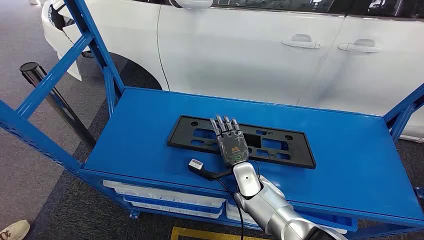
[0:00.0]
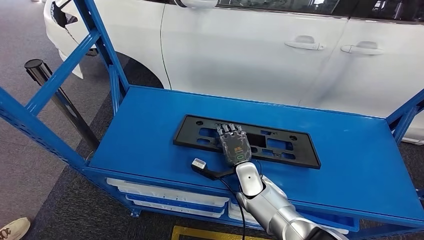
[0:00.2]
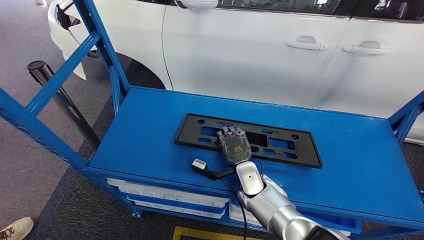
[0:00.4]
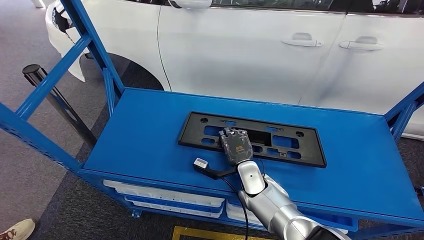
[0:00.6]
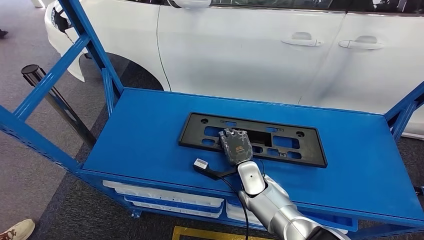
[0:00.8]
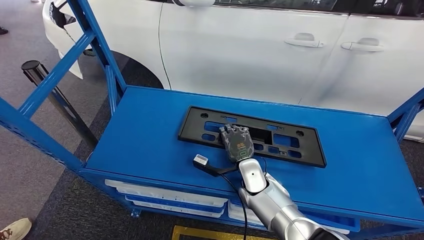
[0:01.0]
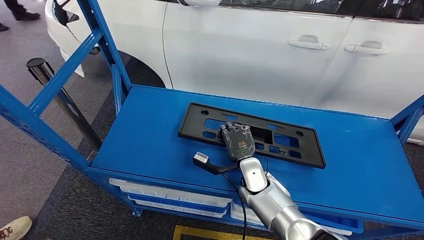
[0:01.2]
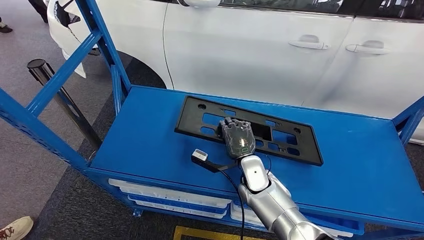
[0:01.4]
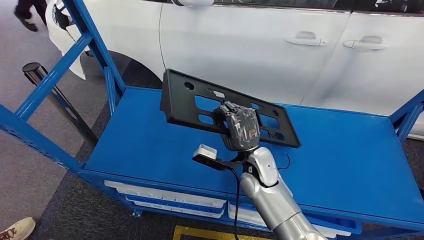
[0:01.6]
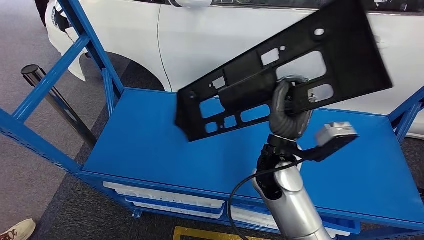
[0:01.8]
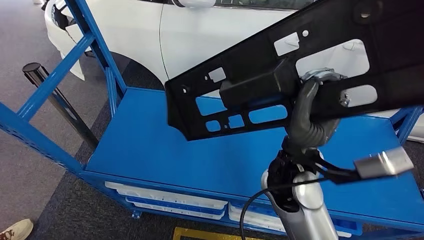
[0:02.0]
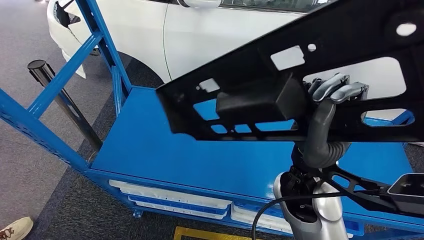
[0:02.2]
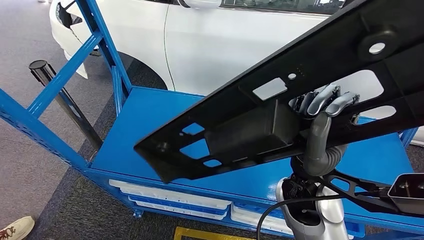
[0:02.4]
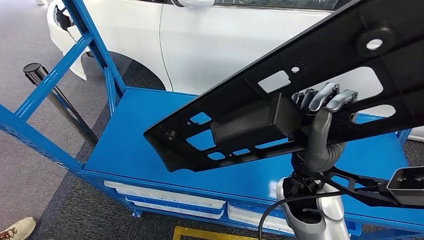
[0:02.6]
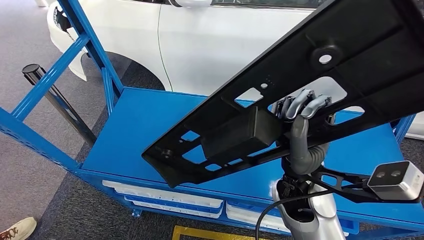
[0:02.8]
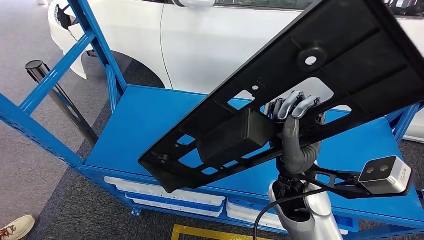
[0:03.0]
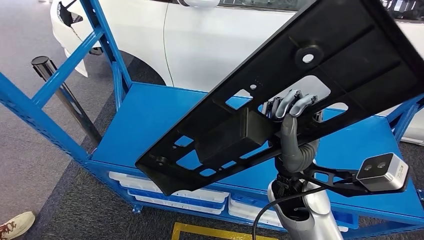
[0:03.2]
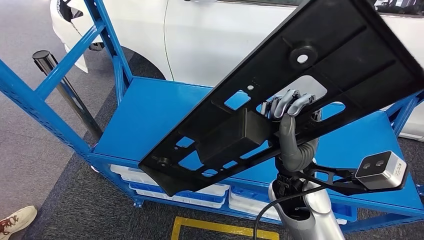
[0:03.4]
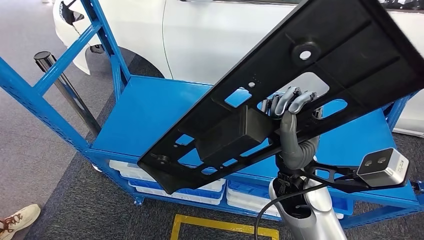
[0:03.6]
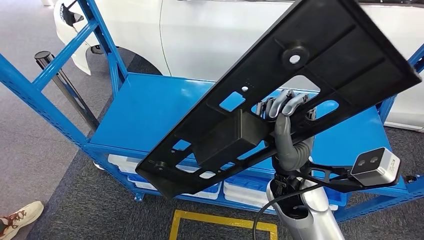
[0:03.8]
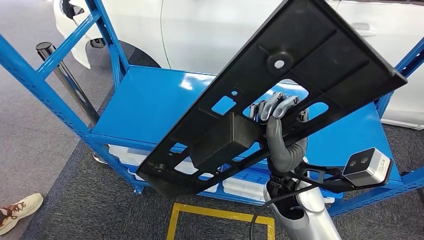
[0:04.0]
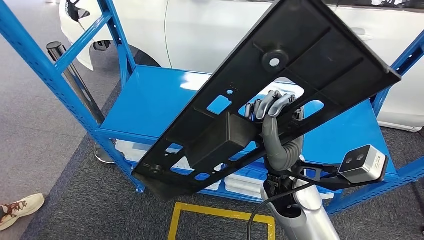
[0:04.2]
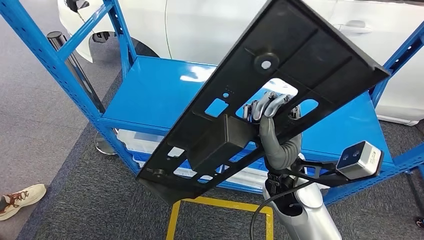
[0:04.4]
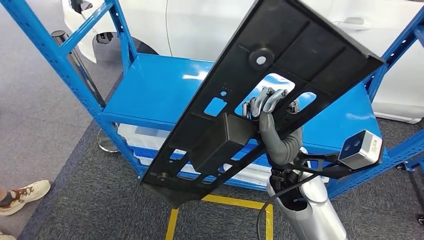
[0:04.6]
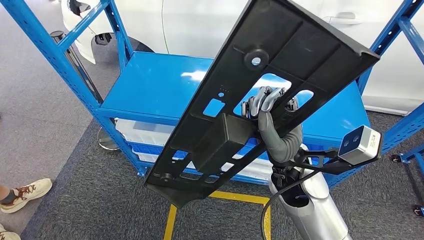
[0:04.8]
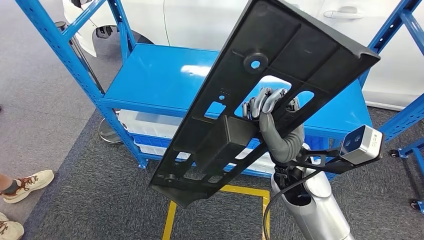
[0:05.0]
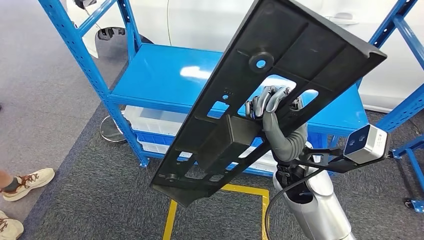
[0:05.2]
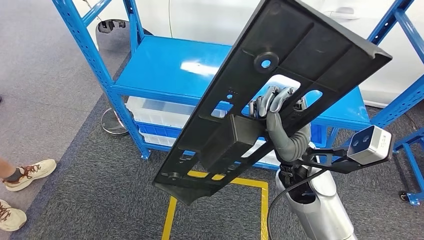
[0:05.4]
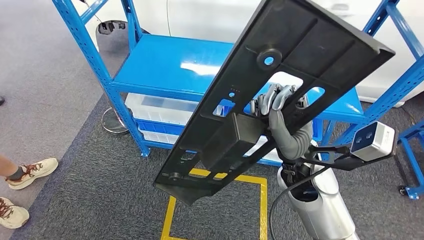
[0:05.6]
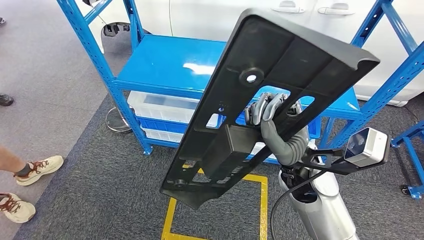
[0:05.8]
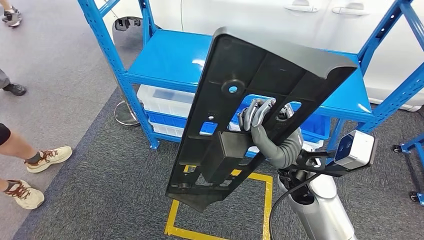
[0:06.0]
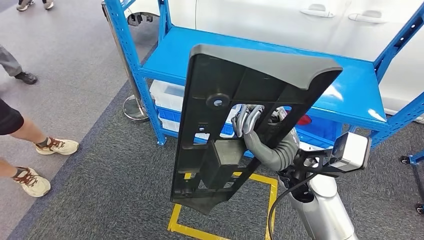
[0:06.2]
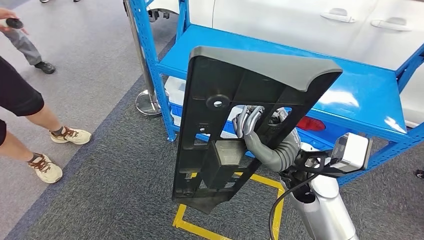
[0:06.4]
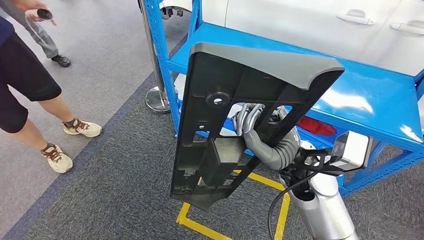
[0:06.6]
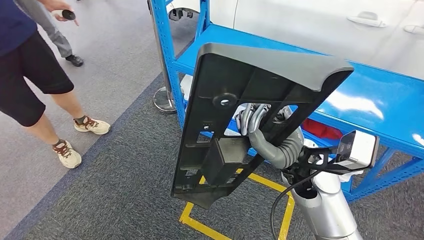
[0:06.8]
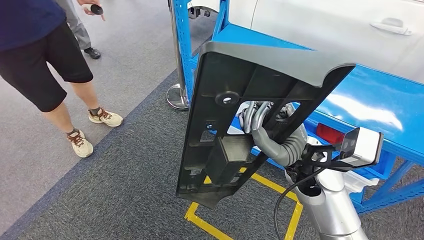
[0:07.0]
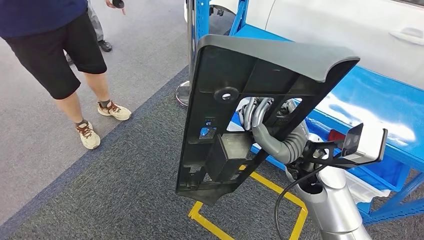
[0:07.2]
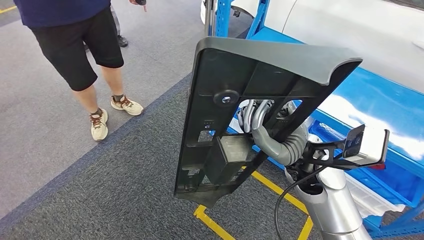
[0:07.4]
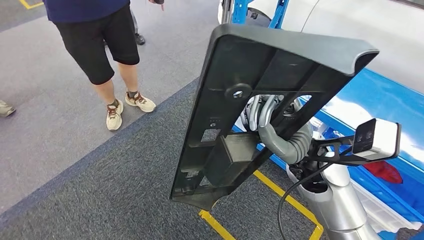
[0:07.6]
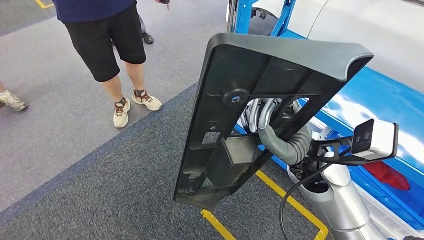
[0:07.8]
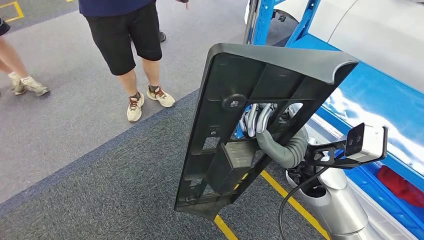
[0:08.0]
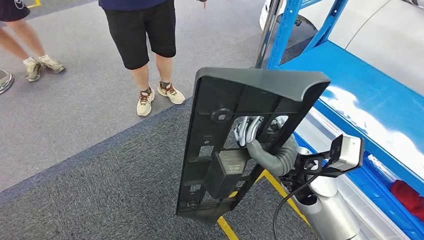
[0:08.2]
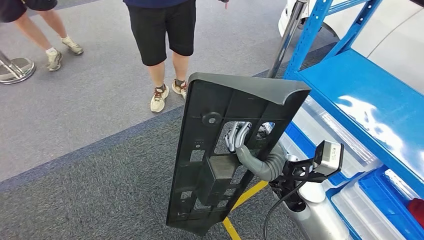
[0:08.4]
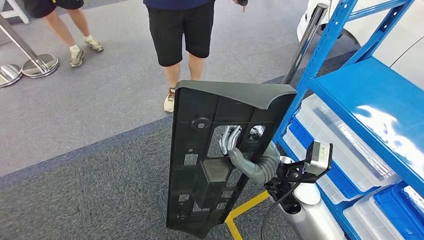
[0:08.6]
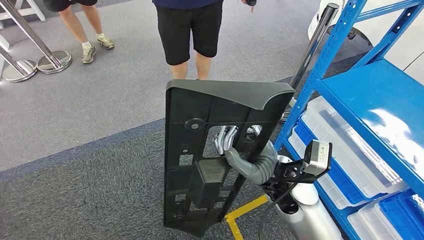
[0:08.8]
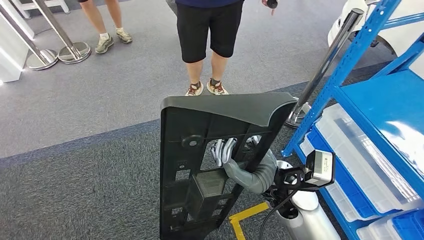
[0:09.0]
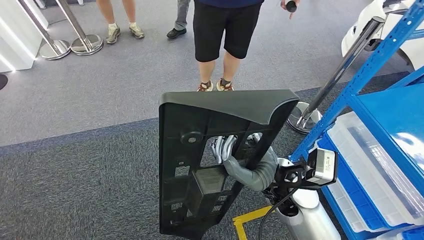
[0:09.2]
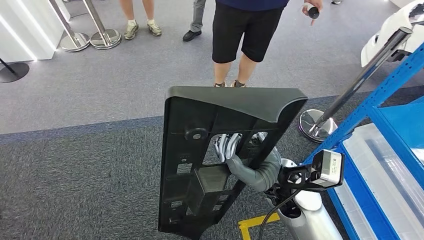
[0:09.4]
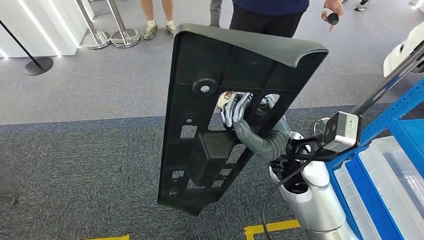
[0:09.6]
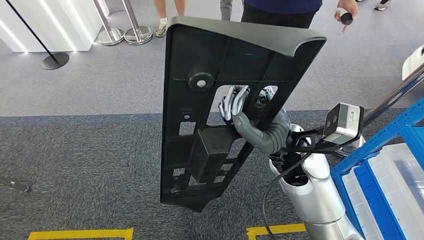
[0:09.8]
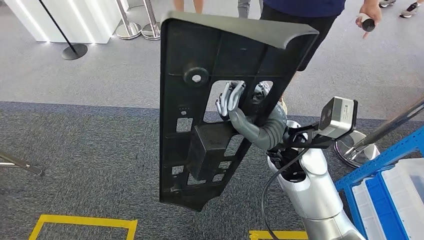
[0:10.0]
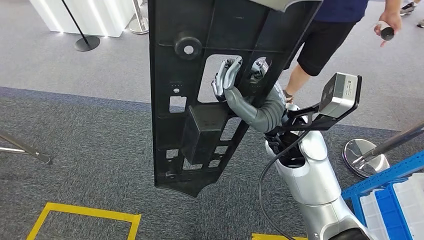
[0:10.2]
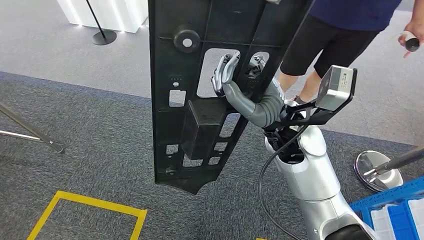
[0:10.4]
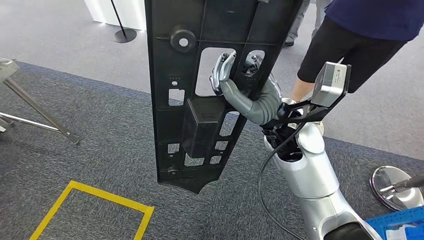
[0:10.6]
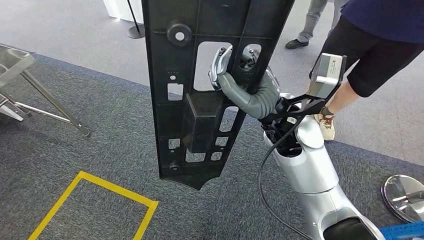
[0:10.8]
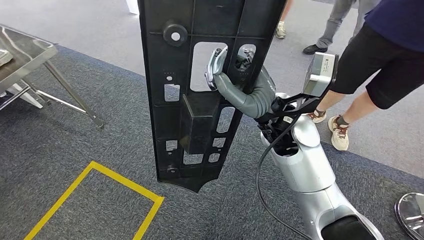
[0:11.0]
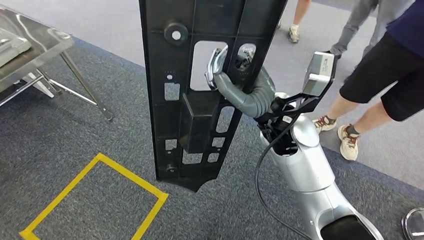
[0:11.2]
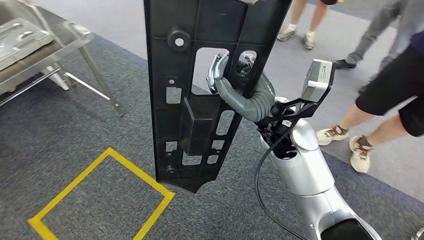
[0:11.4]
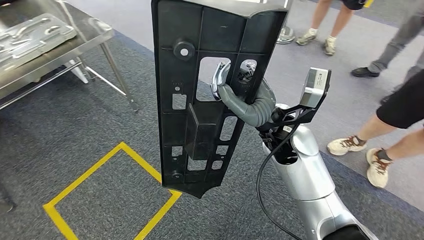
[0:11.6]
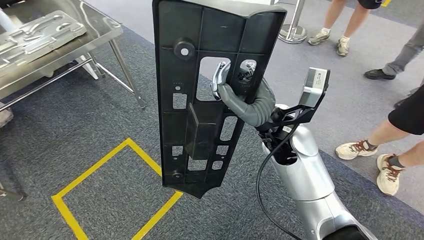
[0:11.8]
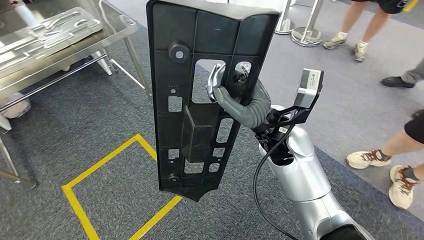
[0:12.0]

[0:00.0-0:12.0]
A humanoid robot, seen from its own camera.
Step, 0:00.0 to 0:03.2: Pick up the small component from the shelf.

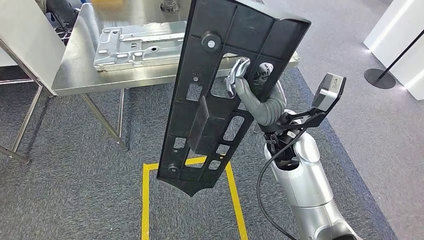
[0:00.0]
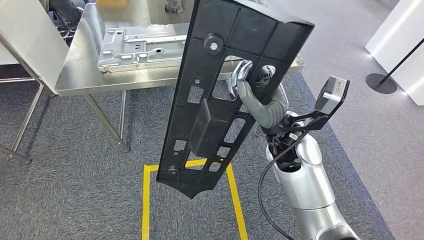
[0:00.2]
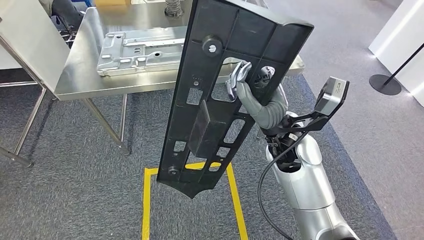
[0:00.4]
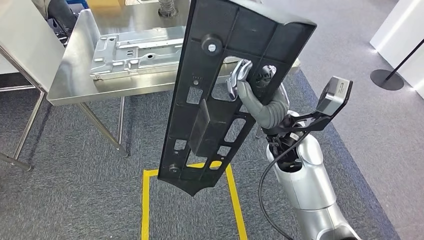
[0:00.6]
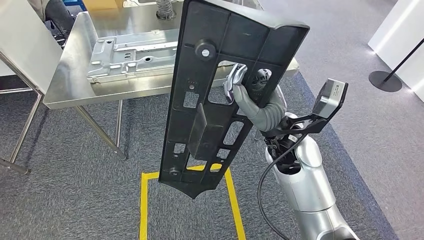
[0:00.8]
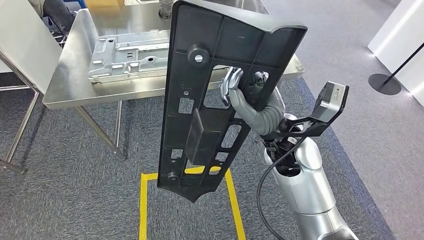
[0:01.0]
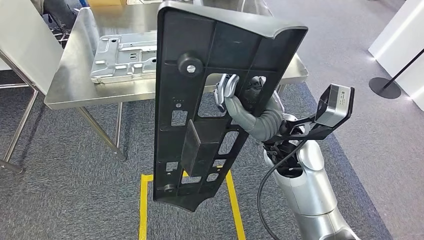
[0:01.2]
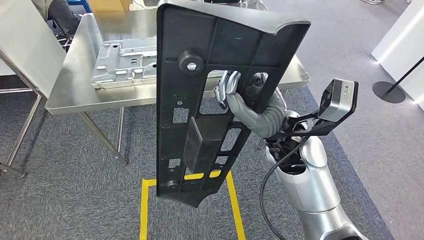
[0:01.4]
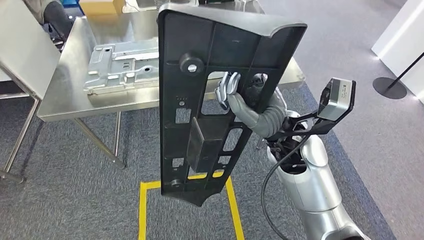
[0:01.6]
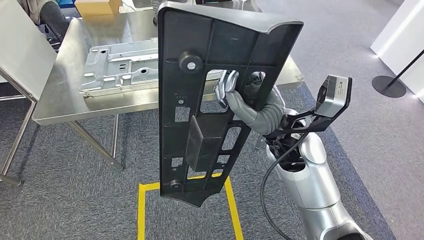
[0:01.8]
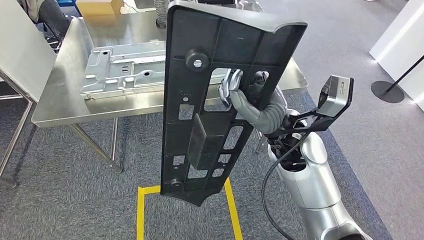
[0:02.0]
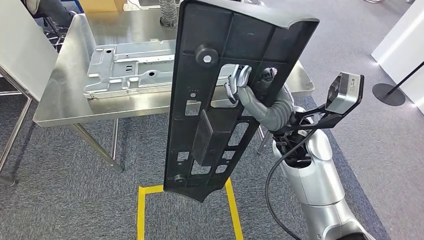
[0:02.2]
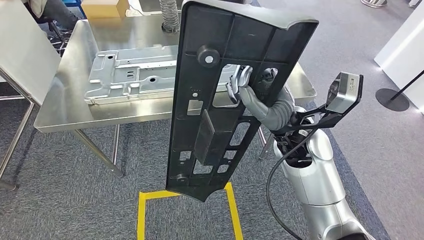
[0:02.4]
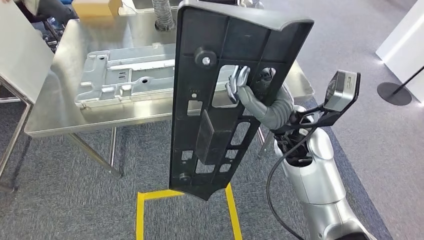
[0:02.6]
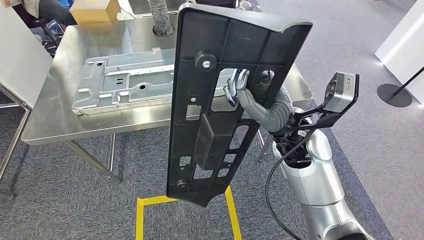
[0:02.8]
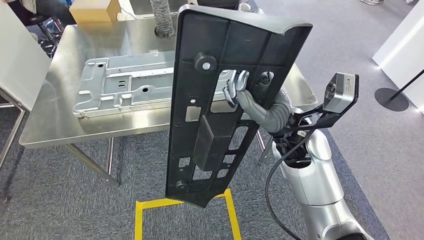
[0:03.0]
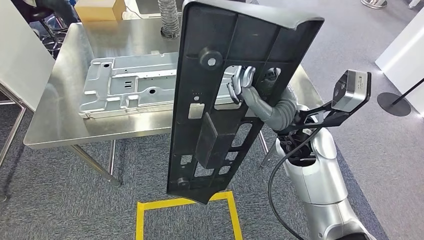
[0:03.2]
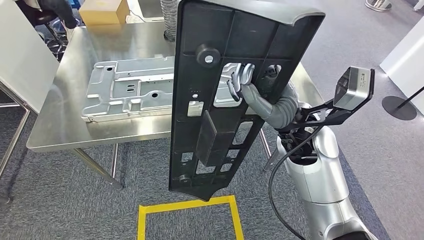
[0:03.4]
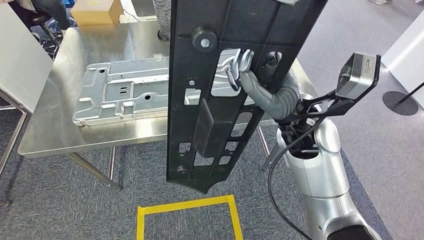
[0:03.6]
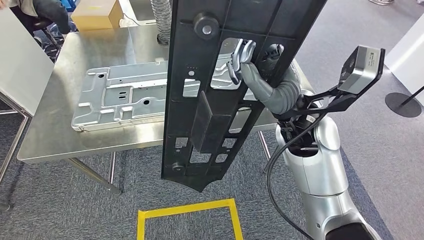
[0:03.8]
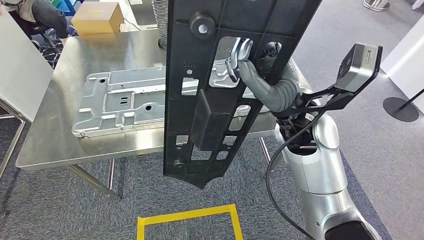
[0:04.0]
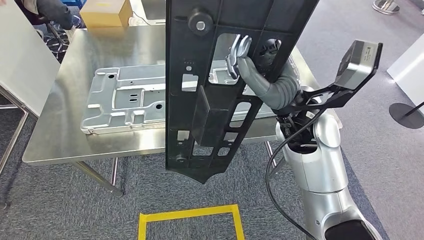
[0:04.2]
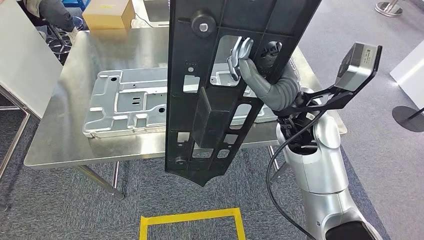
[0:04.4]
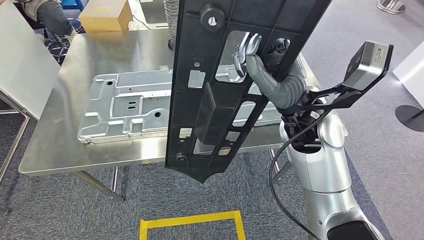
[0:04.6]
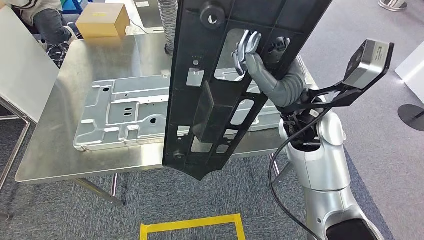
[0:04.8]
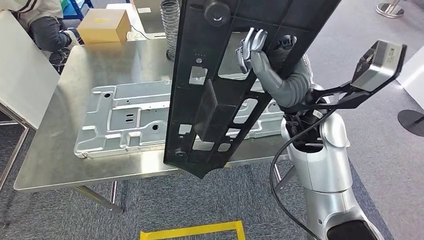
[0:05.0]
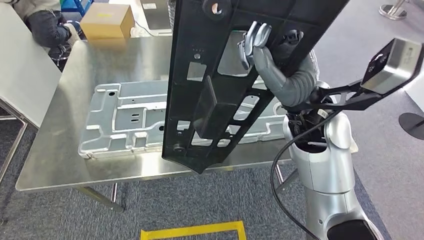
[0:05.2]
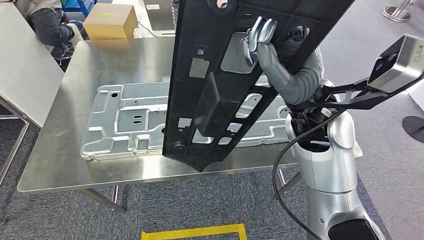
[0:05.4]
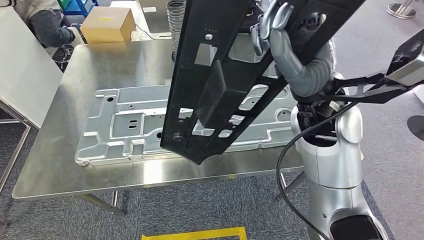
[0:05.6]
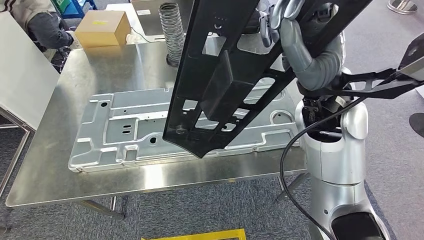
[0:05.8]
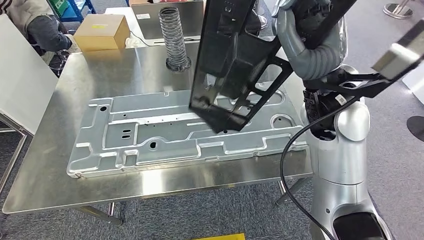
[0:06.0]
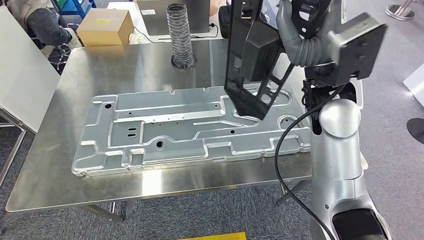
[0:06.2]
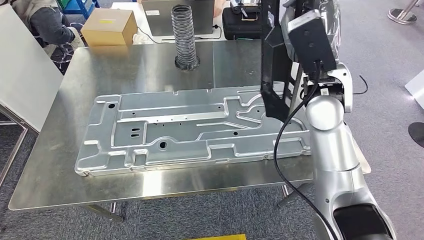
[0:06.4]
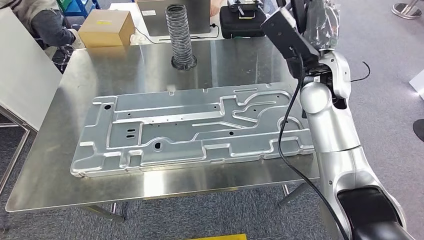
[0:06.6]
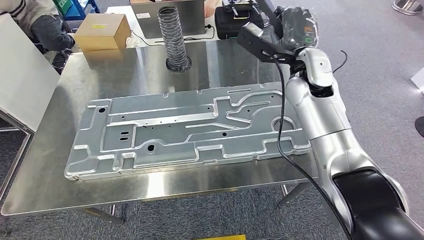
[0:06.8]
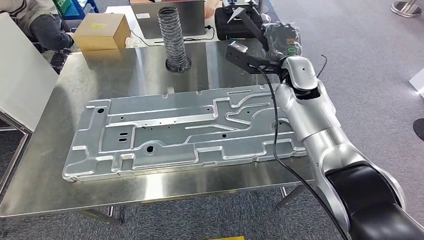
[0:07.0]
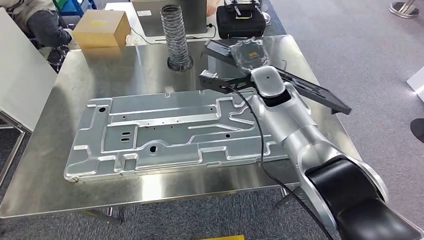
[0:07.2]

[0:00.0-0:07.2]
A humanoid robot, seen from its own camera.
Step, 0:00.0 to 0:05.4: Bring the small component to the front of the workbench.
